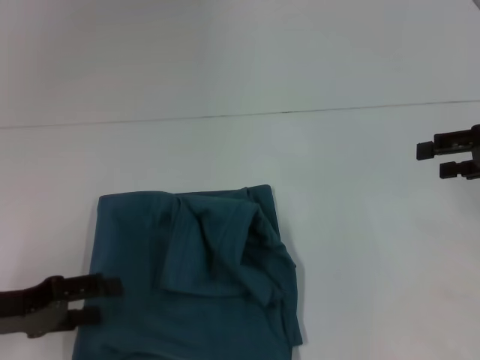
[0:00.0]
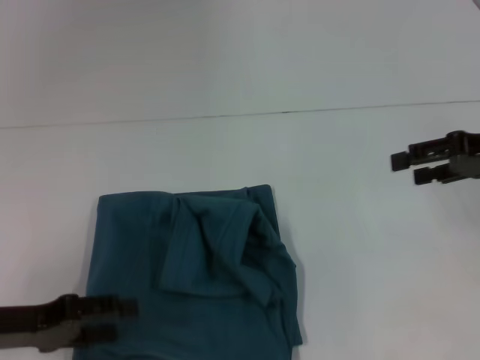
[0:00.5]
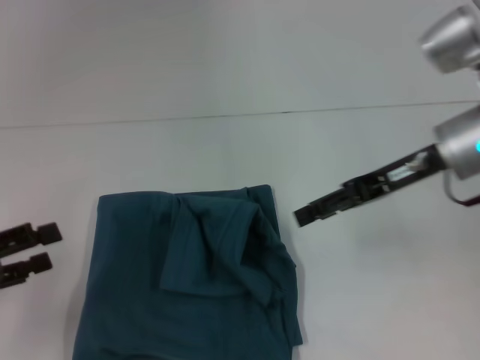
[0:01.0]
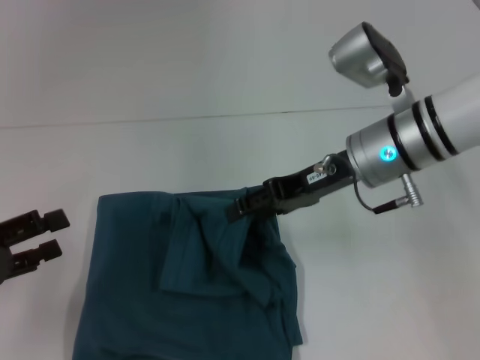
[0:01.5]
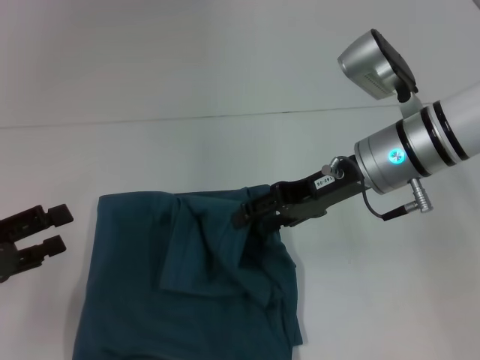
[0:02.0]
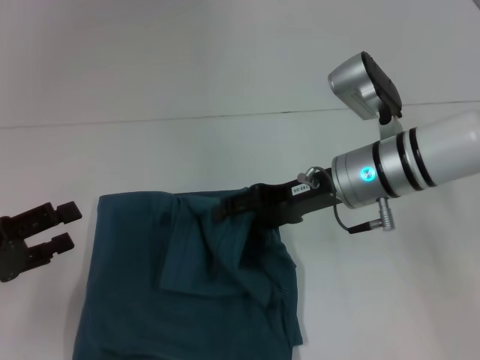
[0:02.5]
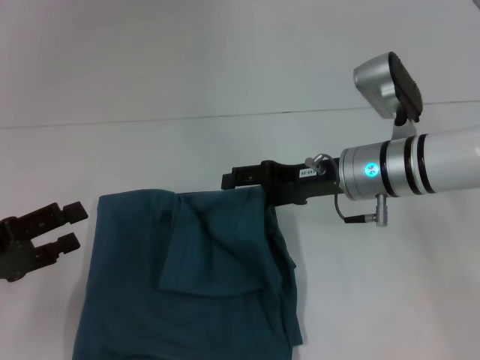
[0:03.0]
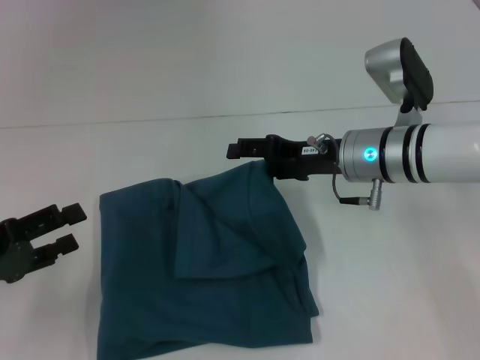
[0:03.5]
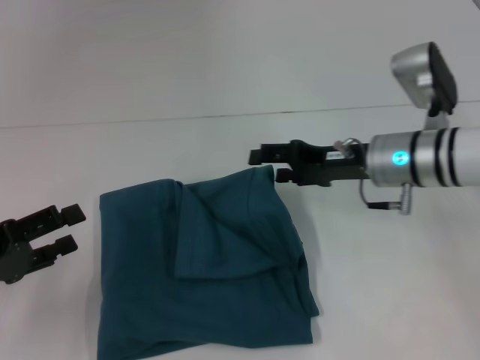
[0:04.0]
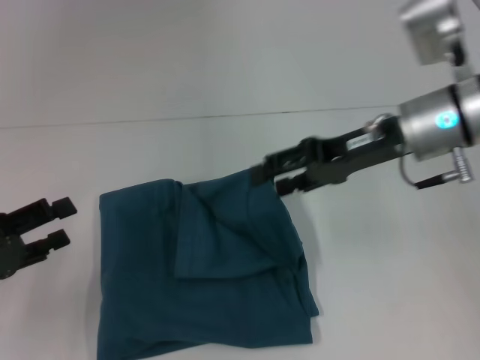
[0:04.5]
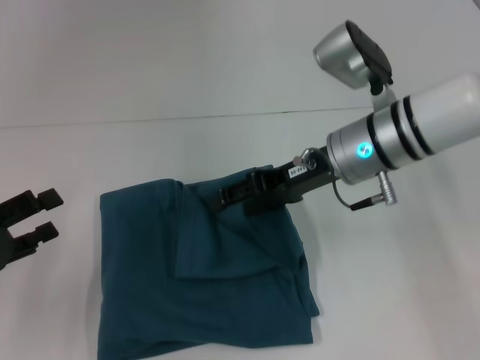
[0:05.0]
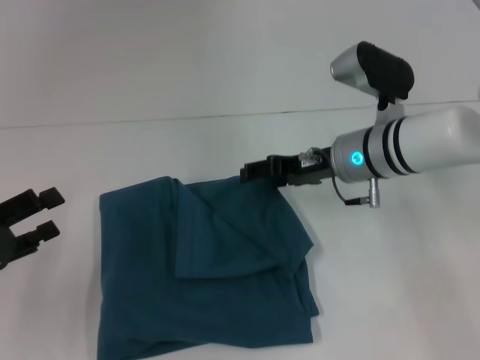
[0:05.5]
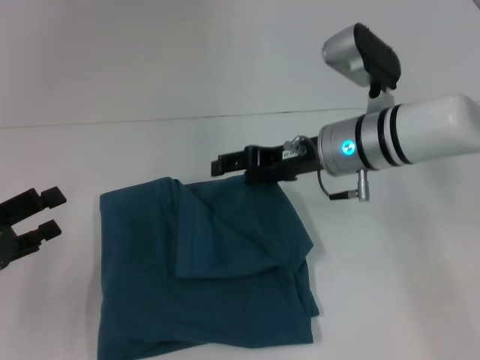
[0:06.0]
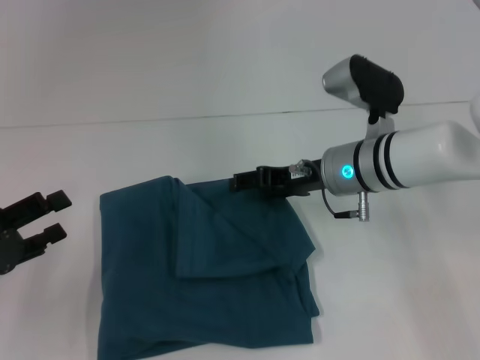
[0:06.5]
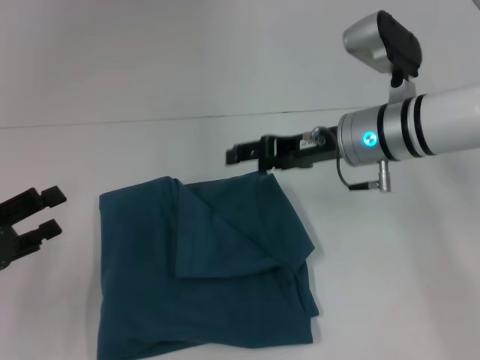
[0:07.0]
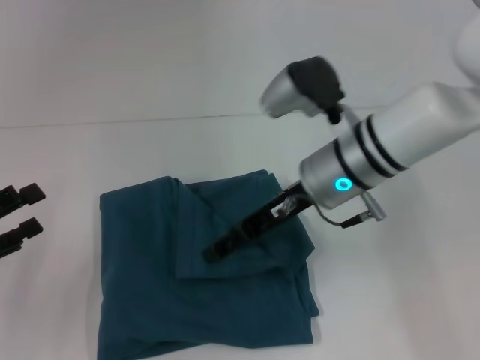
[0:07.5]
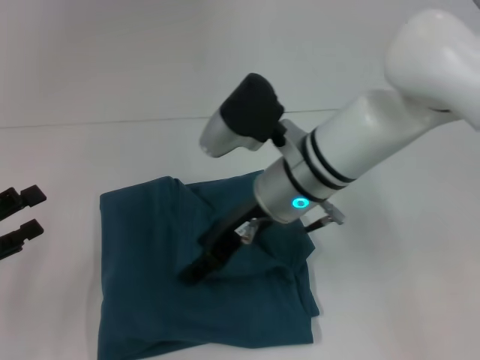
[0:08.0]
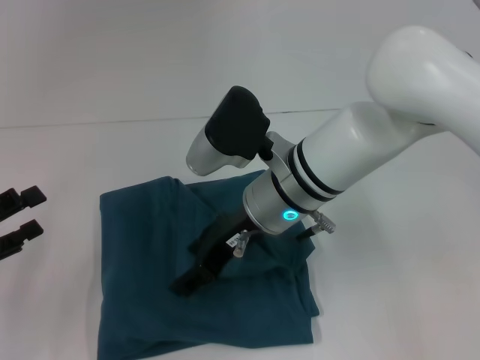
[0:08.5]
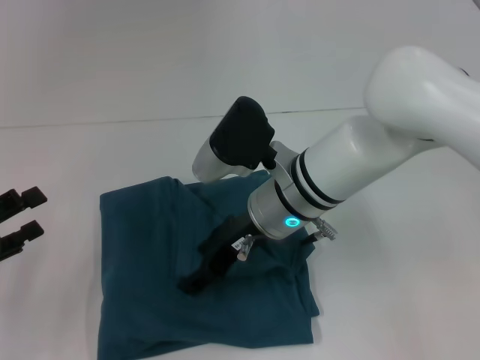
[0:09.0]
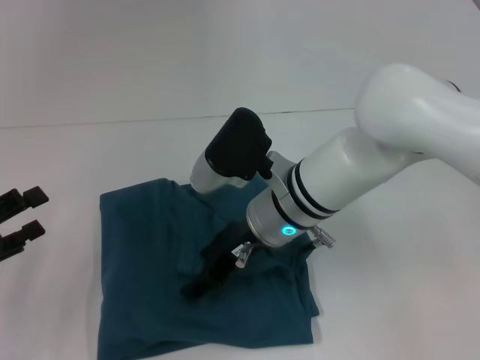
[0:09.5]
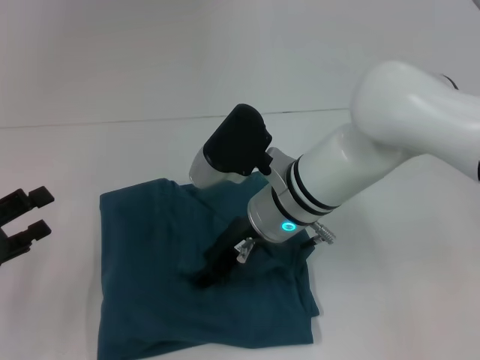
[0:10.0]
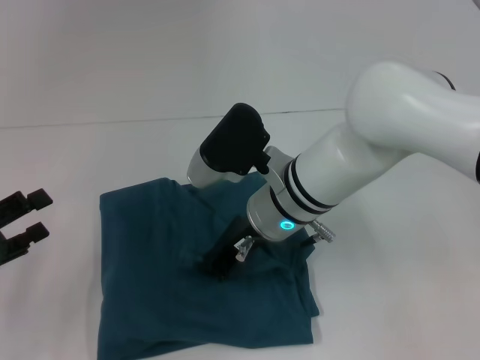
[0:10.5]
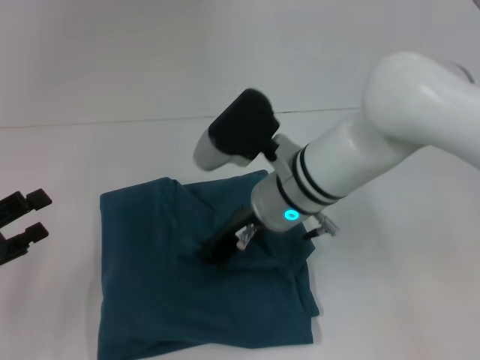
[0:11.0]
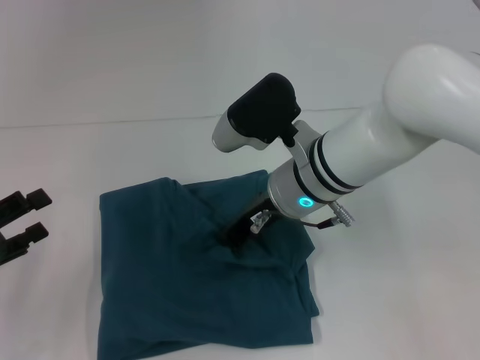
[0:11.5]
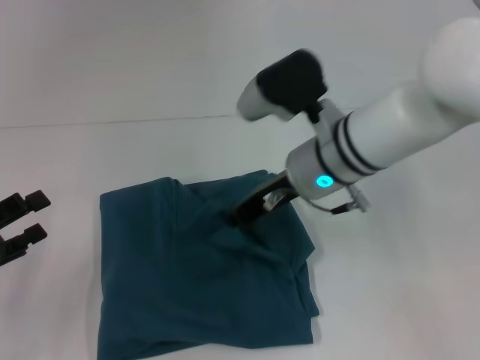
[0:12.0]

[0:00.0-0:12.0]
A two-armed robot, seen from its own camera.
0:00.0 to 0:02.0: The right gripper travels to the left by about 20 cm.
0:02.0 to 0:04.0: The right gripper shifts by about 5 cm.
0:04.0 to 0:06.0: The right gripper moves to the left, some 5 cm.
0:06.0 to 0:08.0: The right gripper moves to the left, approximately 10 cm.
0:08.0 to 0:10.0: The grippers move only a little.
0:10.0 to 0:12.0: The right gripper changes place by some 5 cm, and closes its fingers.

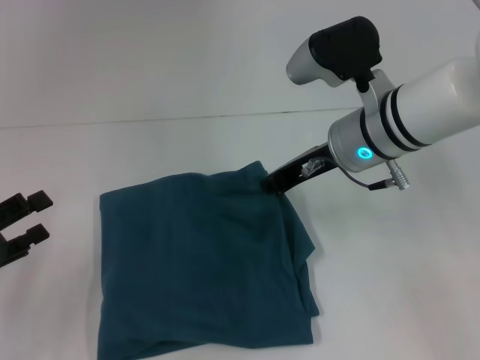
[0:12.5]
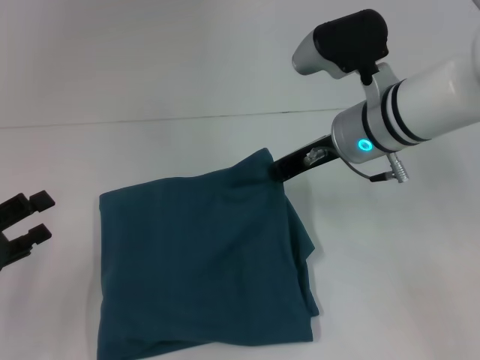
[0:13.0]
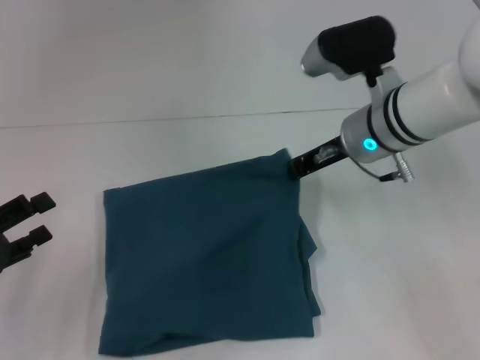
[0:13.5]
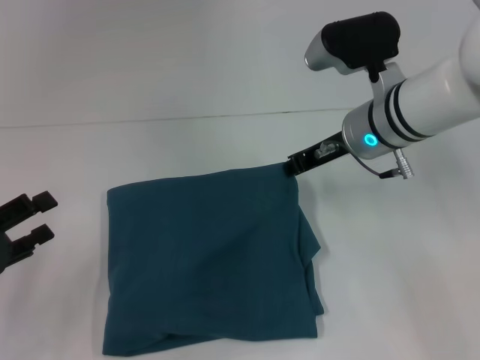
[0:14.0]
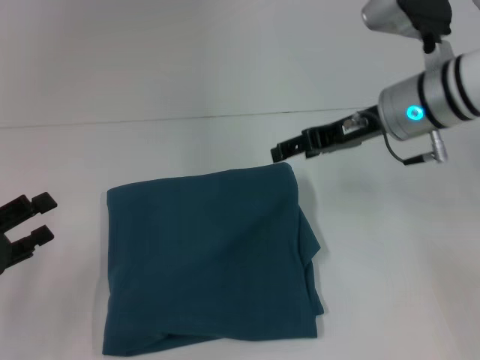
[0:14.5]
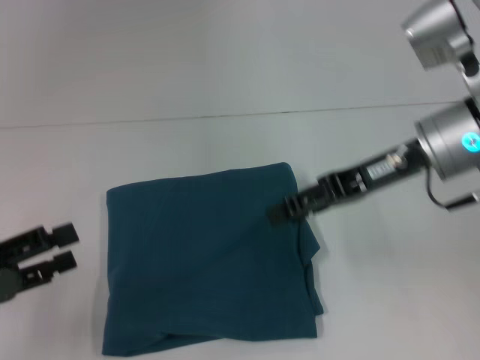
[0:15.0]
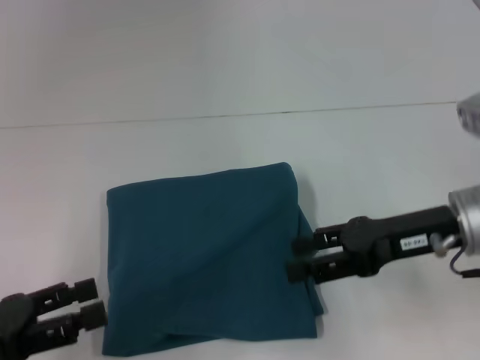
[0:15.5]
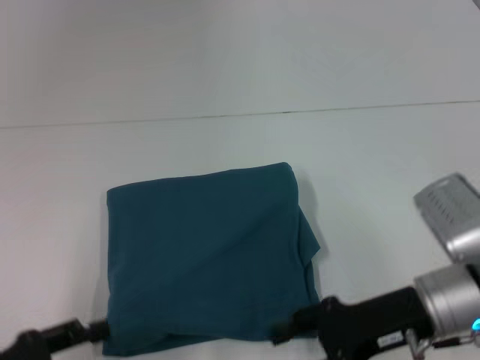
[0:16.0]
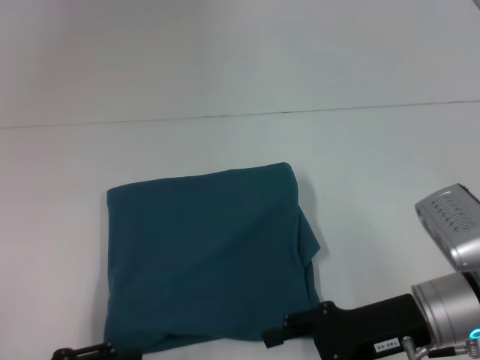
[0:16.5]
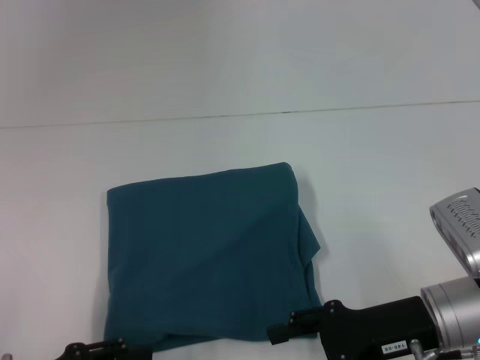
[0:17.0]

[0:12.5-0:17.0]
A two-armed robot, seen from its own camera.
0:12.5 to 0:14.5: The right gripper is displaced to the right by some 5 cm, and opens its fingers.
0:14.5 to 0:17.0: The left gripper travels to the right and backward by some 10 cm, while the right gripper shifts approximately 20 cm backward and downward.

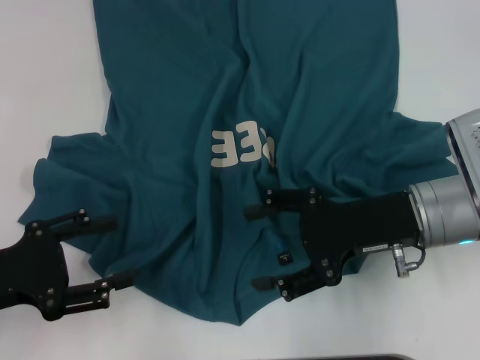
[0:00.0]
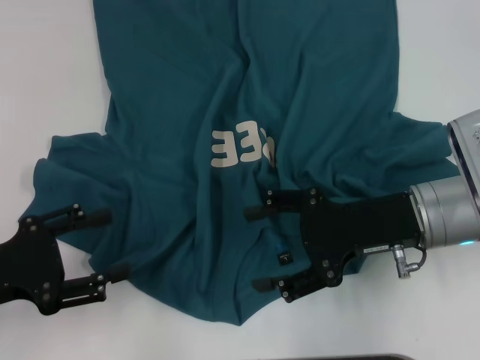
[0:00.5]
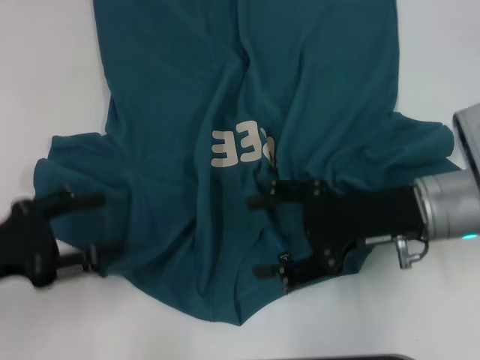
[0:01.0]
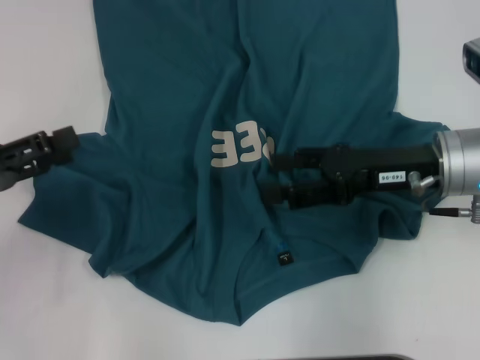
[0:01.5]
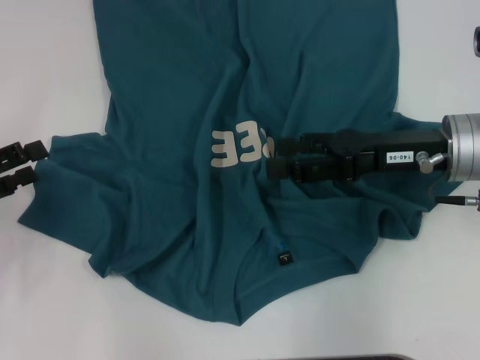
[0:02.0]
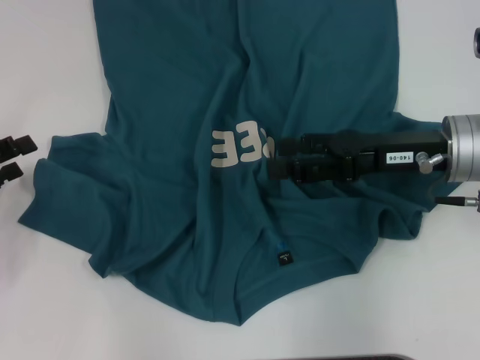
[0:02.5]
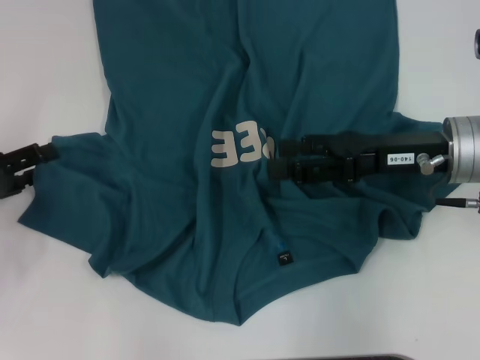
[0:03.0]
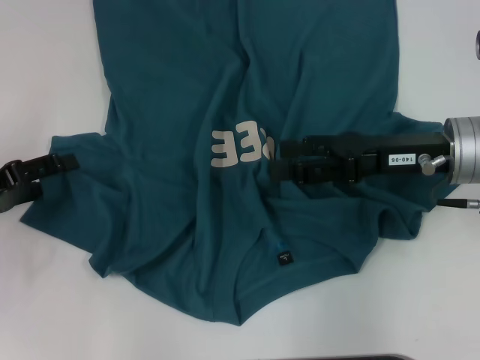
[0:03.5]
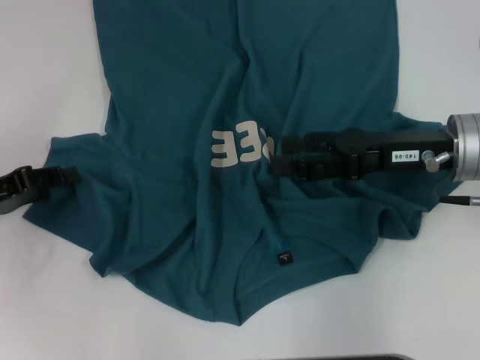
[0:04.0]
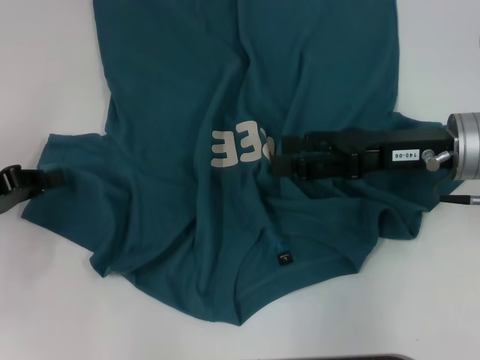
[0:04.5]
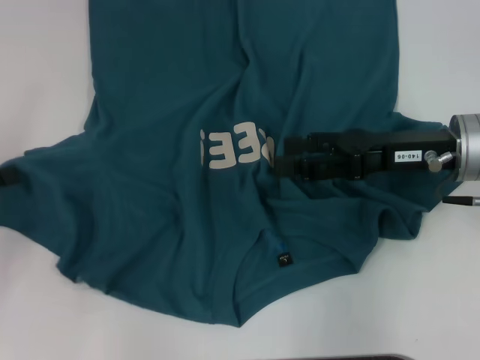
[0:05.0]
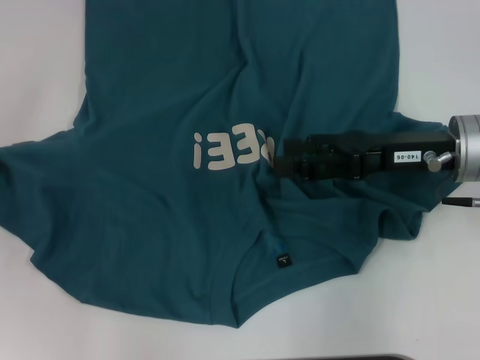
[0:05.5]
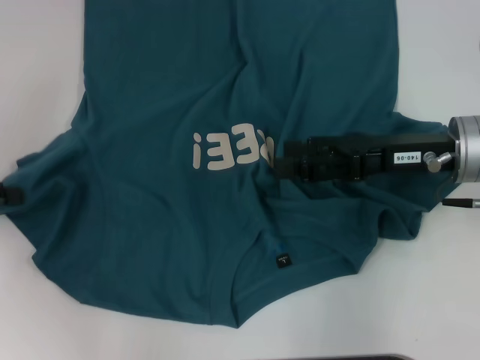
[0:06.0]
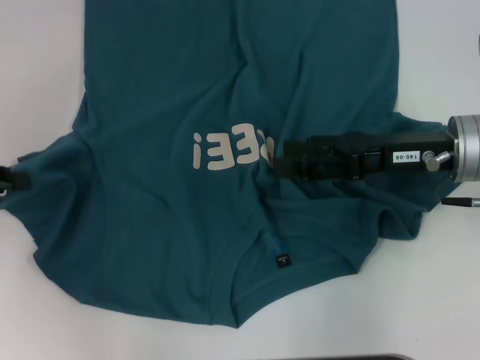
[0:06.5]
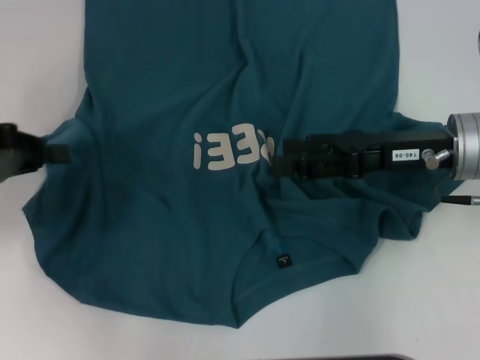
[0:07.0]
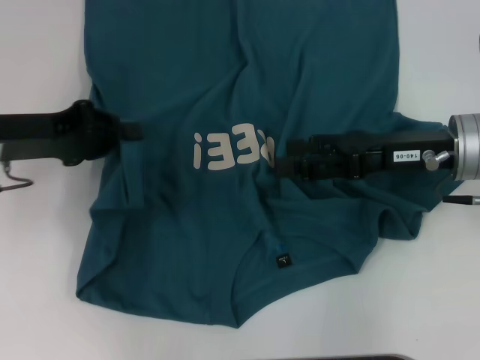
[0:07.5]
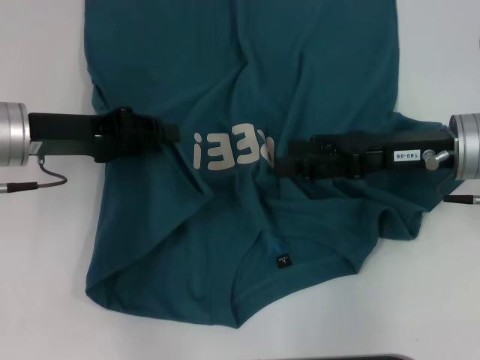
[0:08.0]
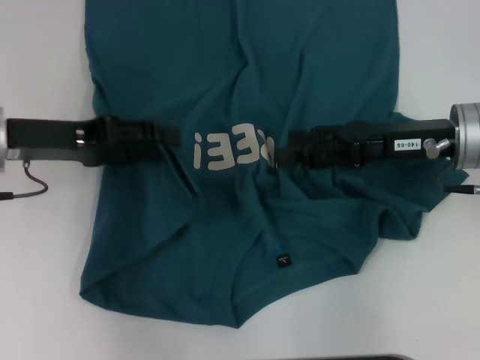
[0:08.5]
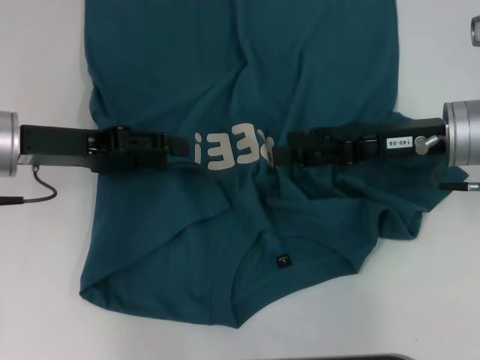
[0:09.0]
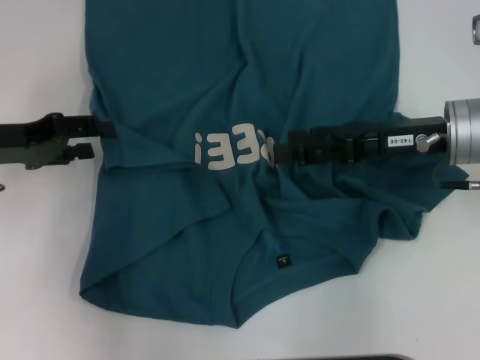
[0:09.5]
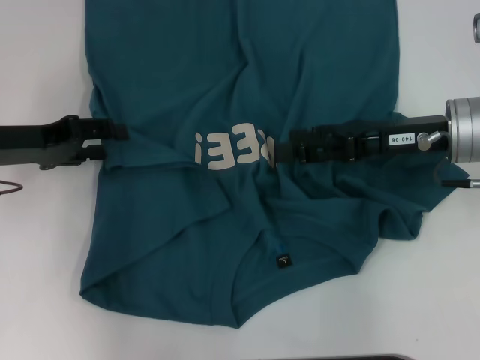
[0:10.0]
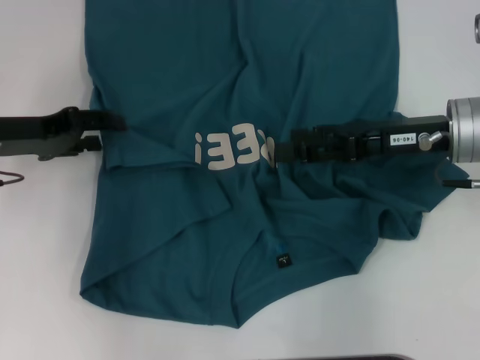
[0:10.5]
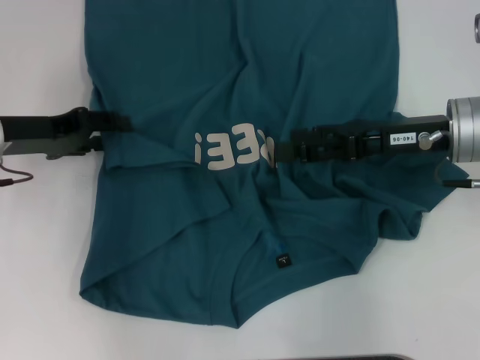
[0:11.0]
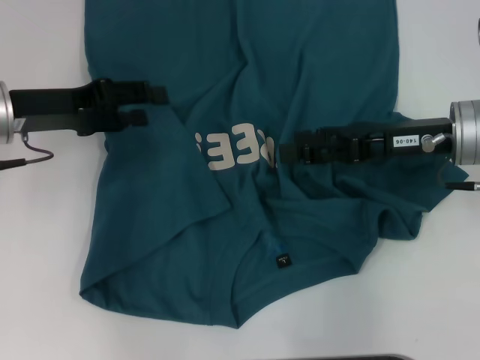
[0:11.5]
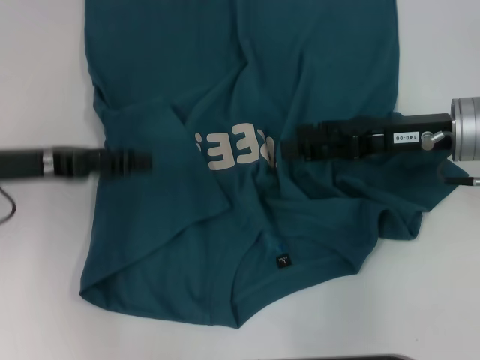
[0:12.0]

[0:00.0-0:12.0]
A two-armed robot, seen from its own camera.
Step, 0:00.0 to 0:11.5: Fold the bottom left sleeve with your left hand.
0:00.0 to 0:02.0: The left gripper heads to the left and forward, covering about 10 cm. The right gripper ends up roughly 5 cm from where it was.
0:02.0 to 0:04.0: The grippers stay close to where they were, moving slightly.
0:04.0 to 0:06.0: The left gripper travels upward by some 5 cm, and closes.
0:06.0 to 0:08.0: The left gripper travels to the right and forward by approximately 15 cm.
0:08.0 to 0:10.0: The left gripper opens up.
